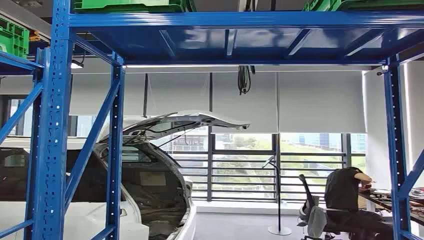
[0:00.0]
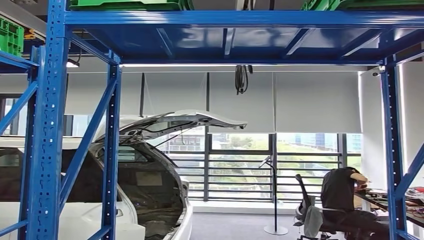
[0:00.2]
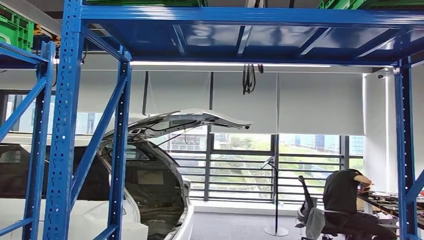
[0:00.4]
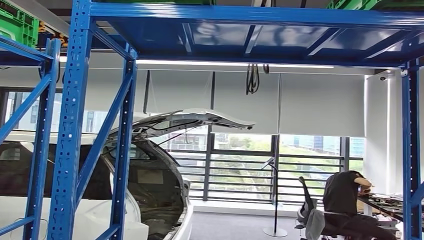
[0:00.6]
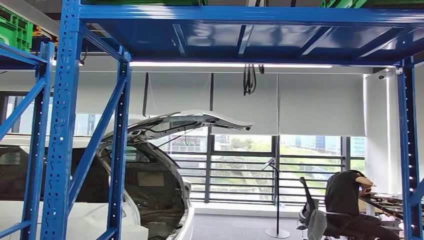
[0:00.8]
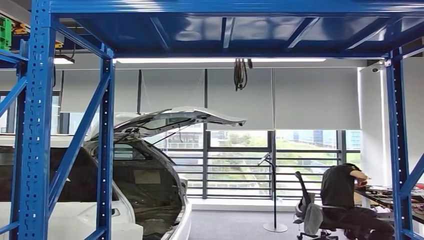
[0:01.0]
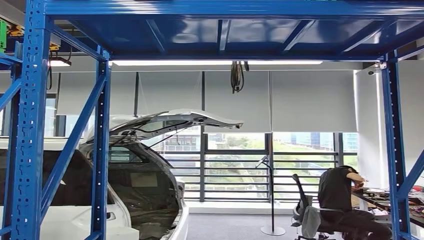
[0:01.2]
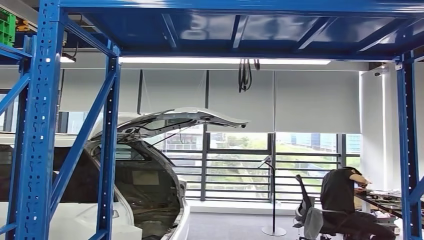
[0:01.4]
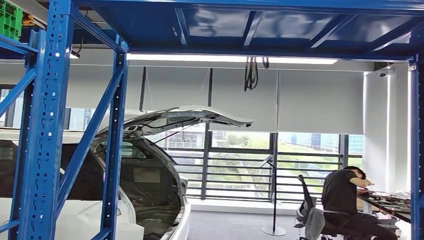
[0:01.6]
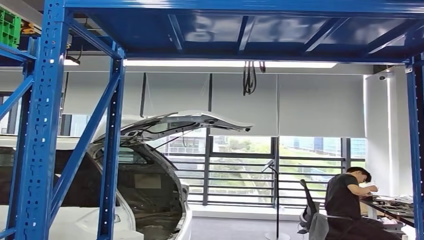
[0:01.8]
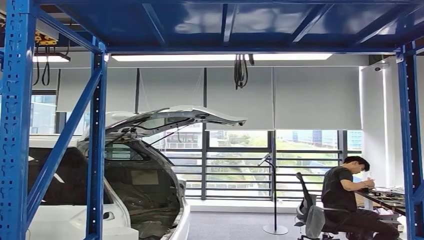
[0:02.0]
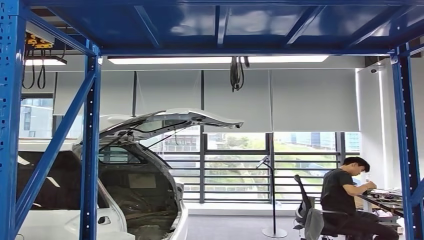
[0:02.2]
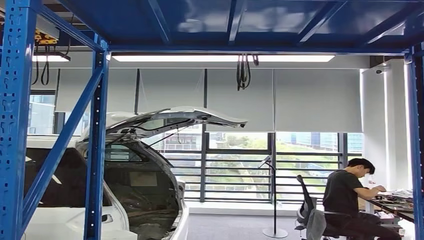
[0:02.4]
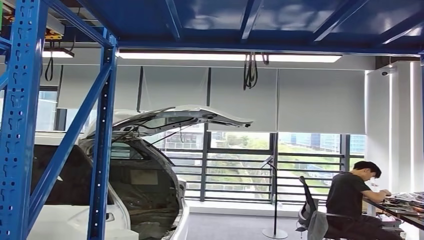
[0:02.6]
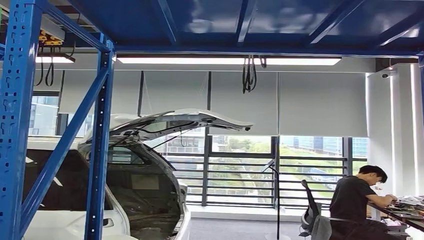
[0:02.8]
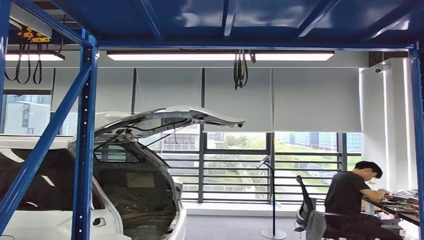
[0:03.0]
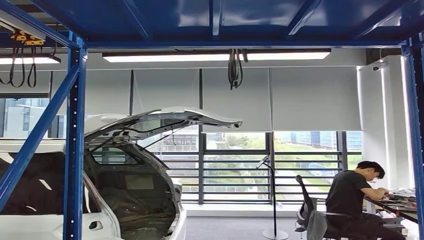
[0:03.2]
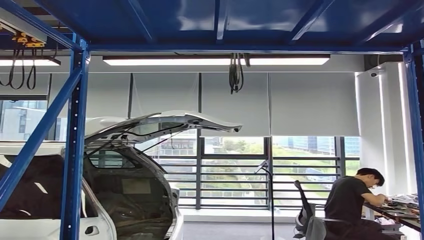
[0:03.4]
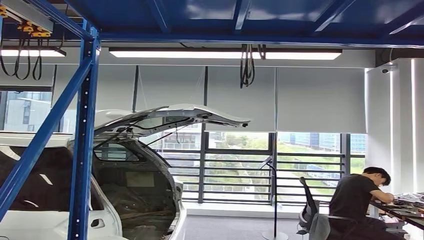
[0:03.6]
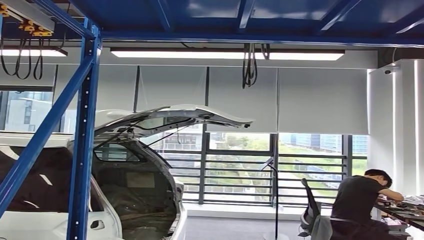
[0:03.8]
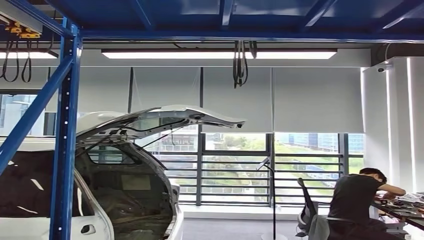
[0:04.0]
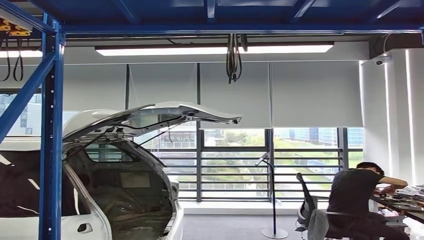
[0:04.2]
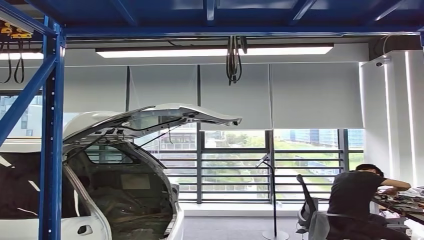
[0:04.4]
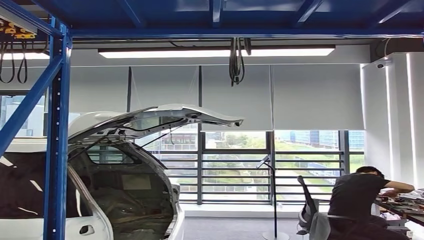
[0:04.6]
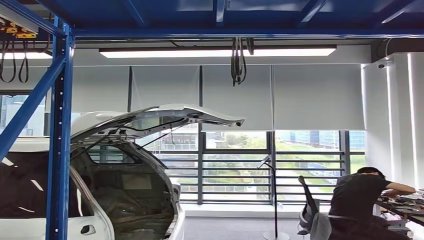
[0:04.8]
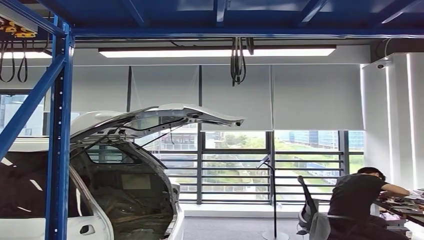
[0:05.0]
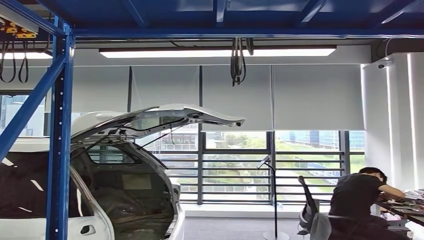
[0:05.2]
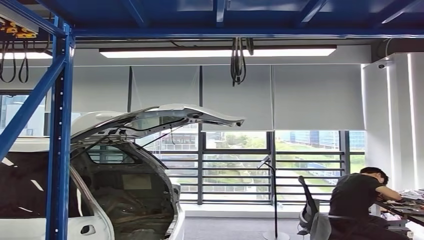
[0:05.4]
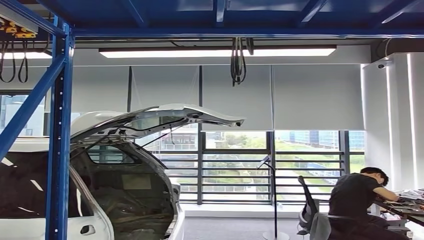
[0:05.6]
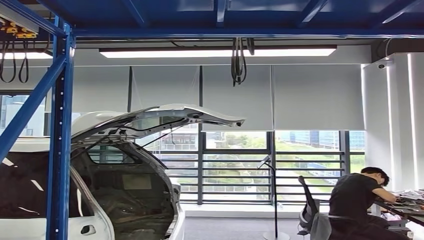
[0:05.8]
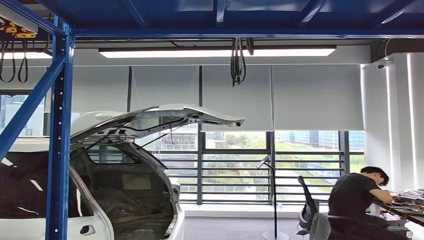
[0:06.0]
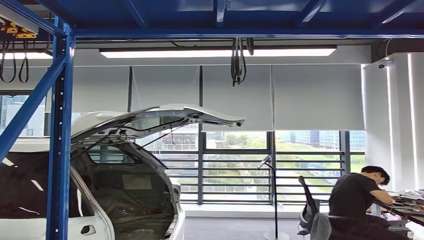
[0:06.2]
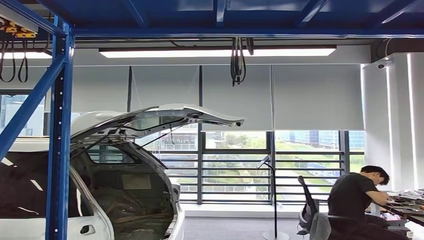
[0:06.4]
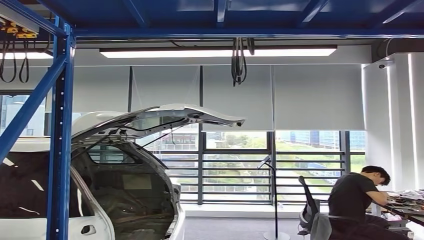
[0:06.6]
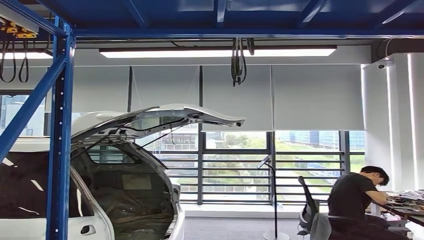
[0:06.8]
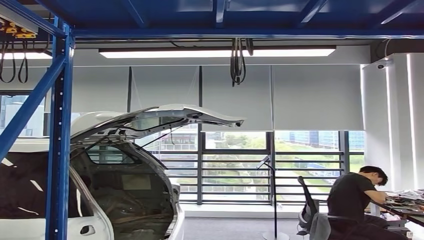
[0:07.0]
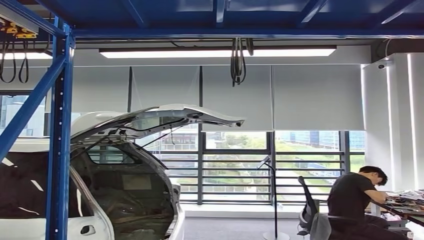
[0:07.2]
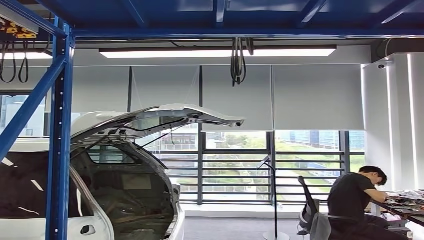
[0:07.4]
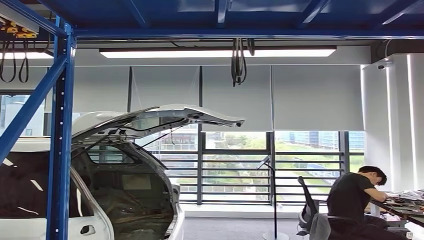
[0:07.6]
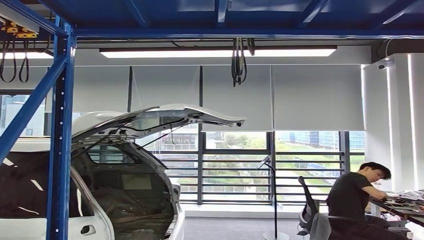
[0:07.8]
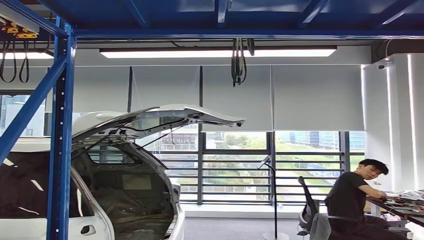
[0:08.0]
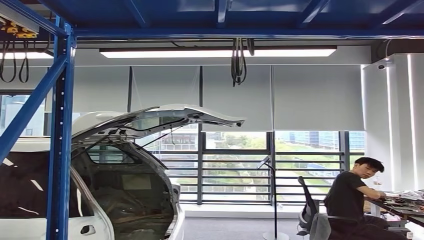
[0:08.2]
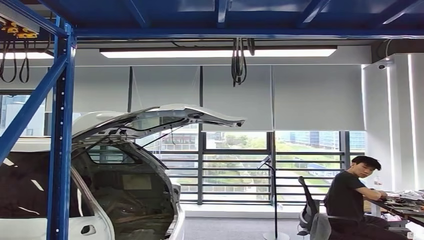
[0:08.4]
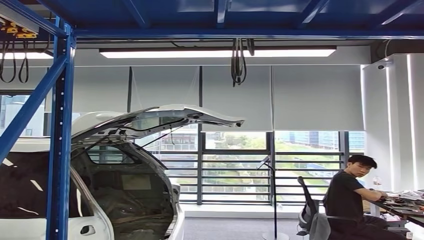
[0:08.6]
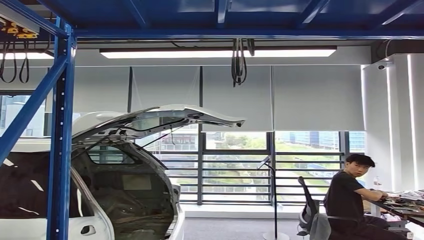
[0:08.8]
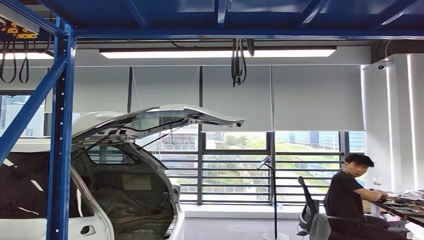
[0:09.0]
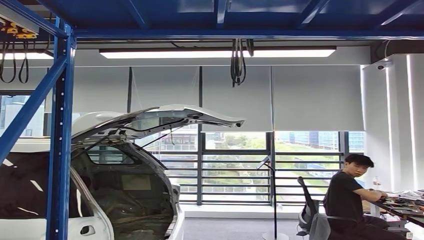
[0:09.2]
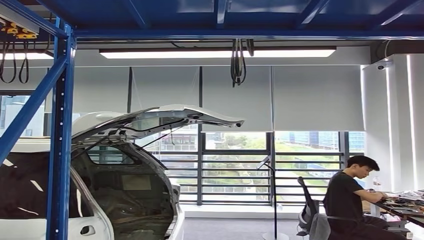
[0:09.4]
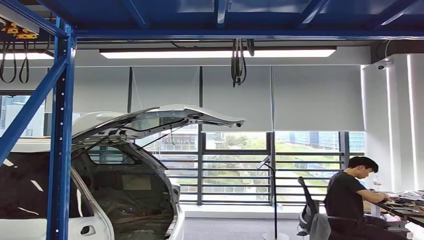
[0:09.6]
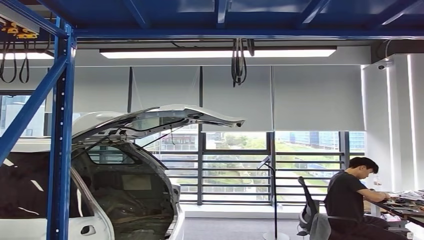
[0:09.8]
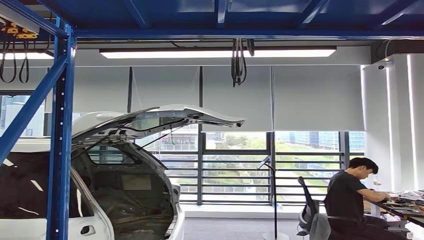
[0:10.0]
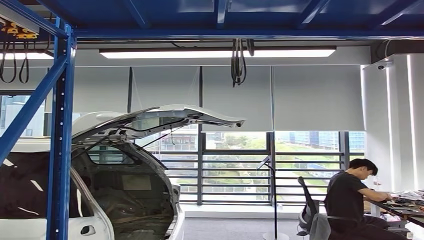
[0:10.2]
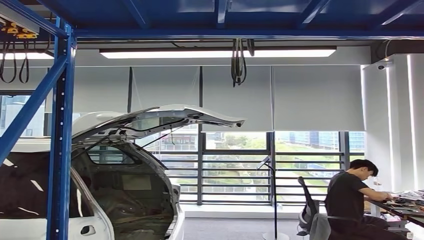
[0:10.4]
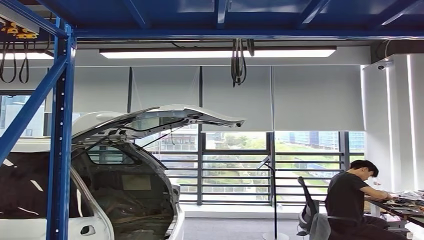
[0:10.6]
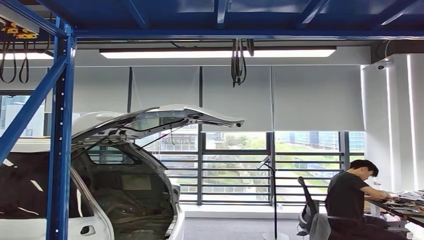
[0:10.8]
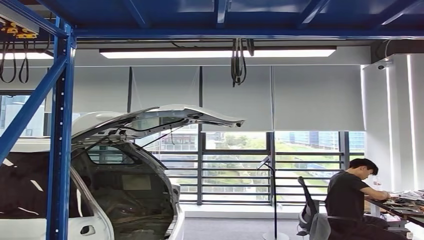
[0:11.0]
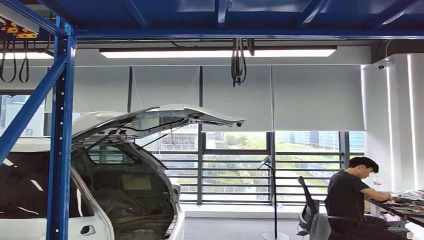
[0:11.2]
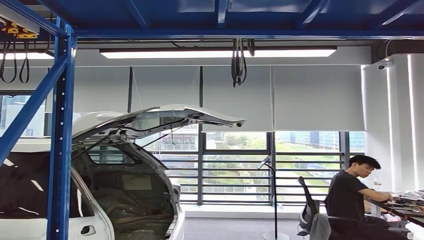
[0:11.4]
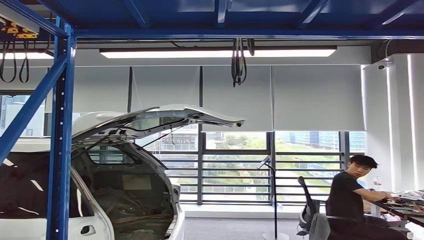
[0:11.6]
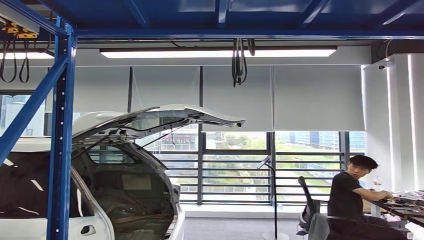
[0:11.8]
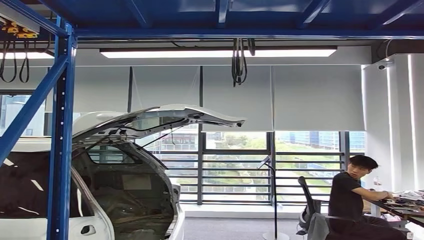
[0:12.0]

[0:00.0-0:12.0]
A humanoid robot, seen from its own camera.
0:06.0 to 0:07.6: The right hand travels to the left by some 15 cm.
0:07.6 to 0:09.0: The right hand shifts by roughly 5 cm.
0:09.0 to 0:10.4: The right hand goes roughly 10 cm to the right, downward and forward.
0:10.4 to 0:12.0: The right hand travels forward and to the left by roughly 15 cm.

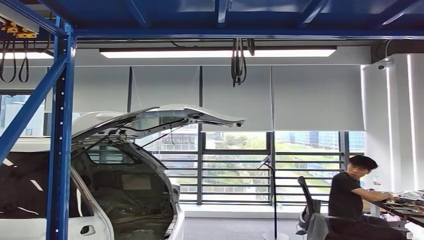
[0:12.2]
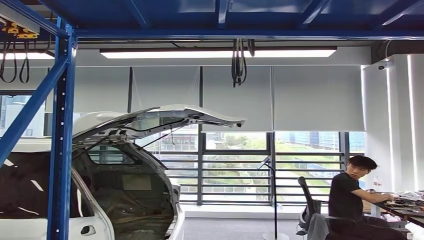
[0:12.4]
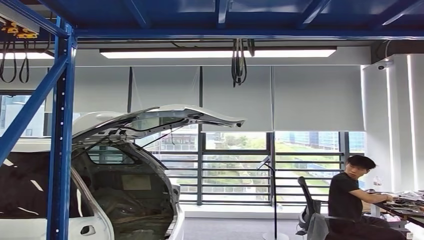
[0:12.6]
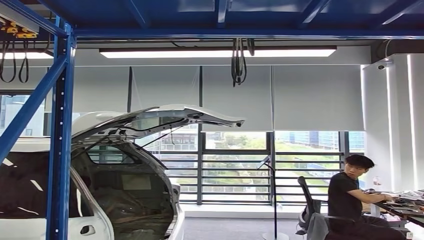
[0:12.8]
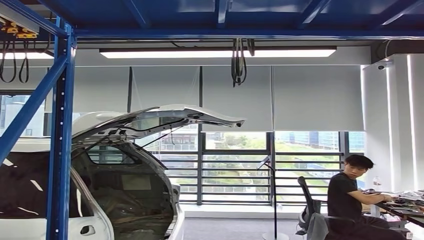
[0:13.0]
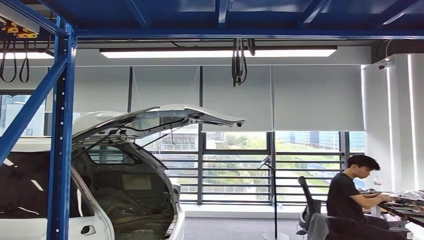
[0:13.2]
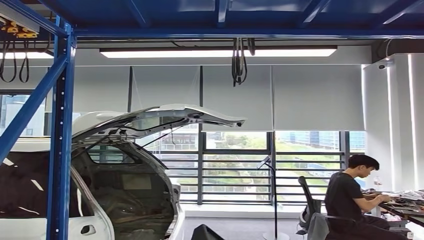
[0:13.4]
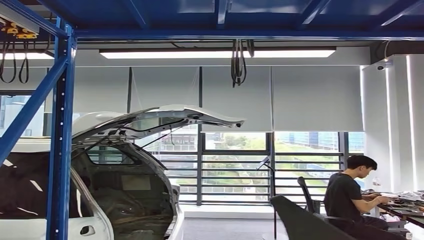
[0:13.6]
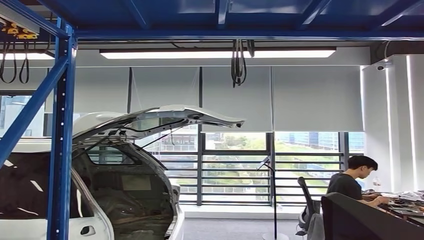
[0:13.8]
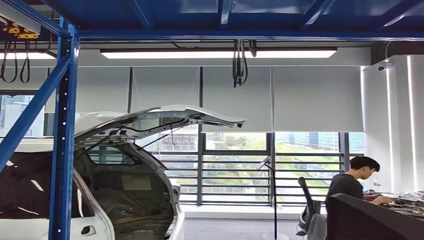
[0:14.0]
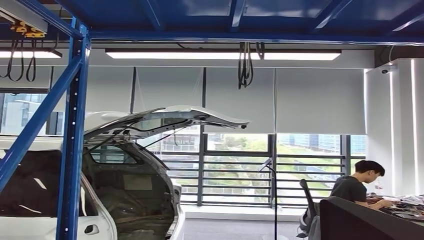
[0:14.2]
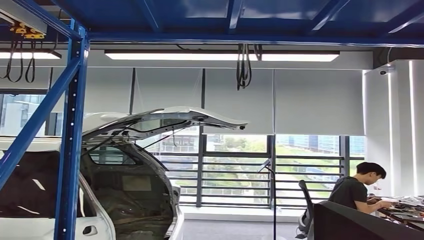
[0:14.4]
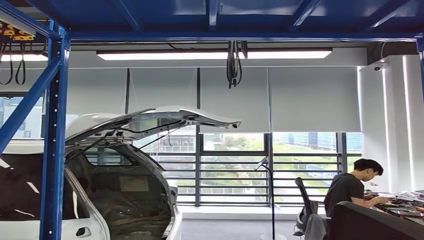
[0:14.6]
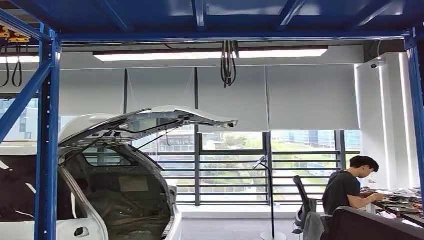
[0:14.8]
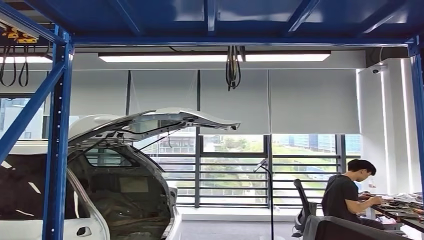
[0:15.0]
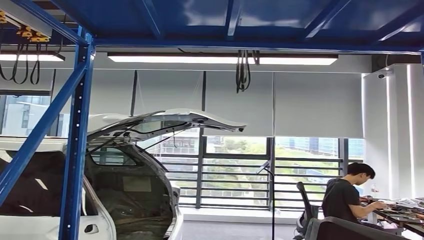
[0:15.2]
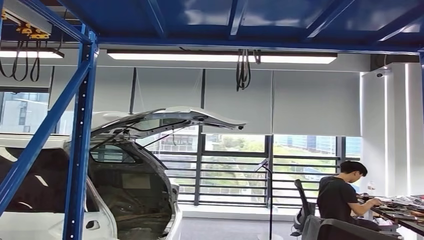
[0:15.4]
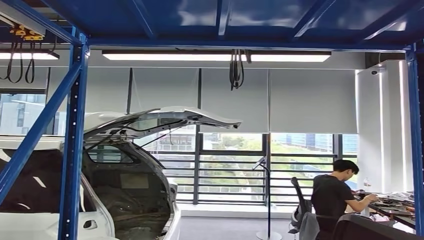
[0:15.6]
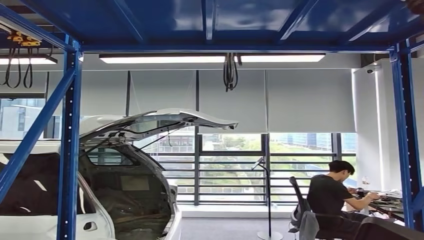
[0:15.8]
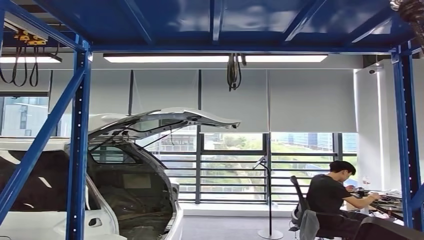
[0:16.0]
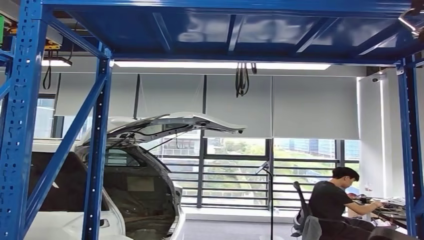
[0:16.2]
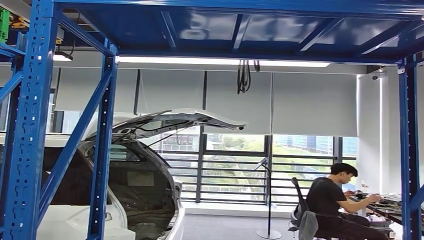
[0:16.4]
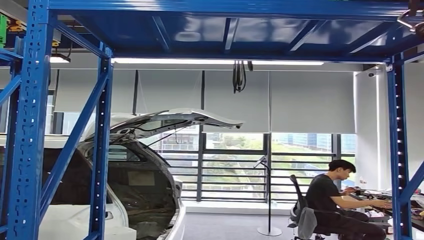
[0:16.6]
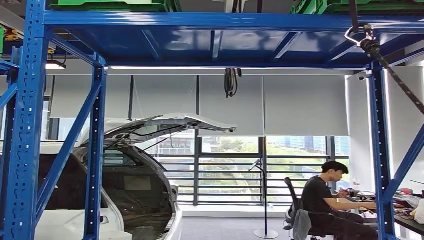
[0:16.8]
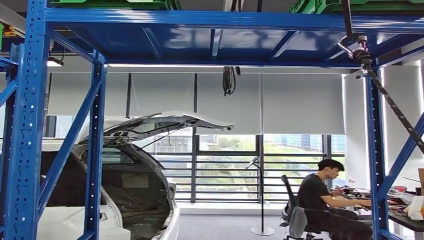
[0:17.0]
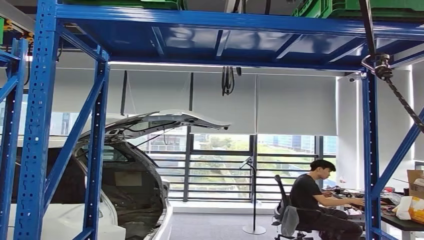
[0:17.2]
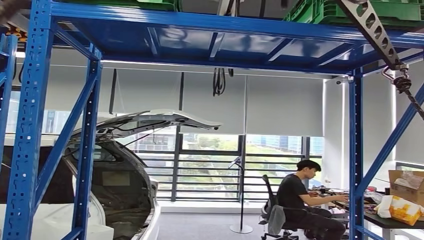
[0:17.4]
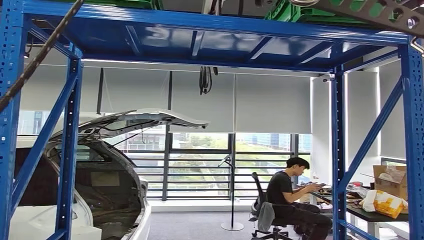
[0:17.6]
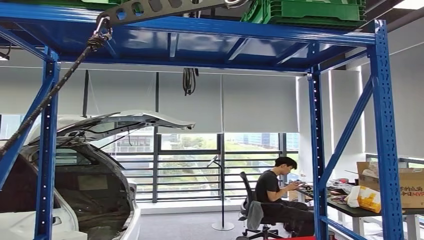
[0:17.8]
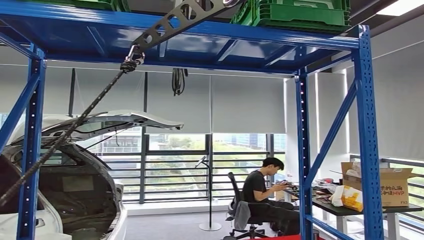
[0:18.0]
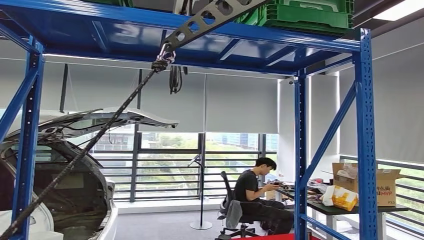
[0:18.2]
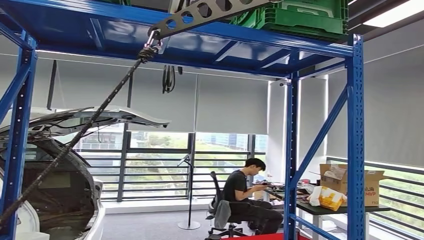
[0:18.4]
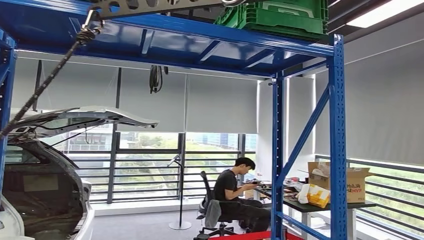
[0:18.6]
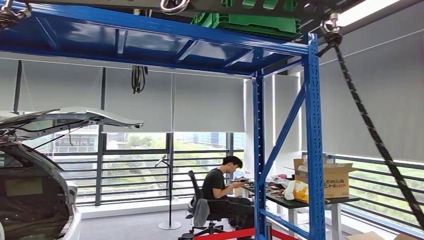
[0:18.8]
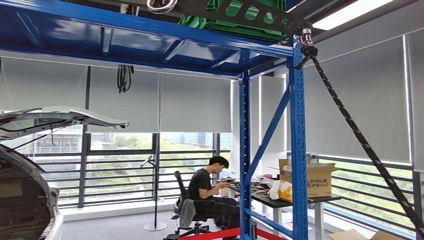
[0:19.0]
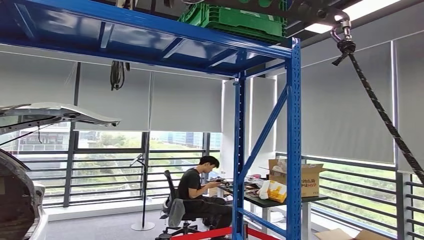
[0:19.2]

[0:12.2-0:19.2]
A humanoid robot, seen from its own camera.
0:12.2 to 0:13.6: The right hand moves backward and upward, approximately 20 cm.
